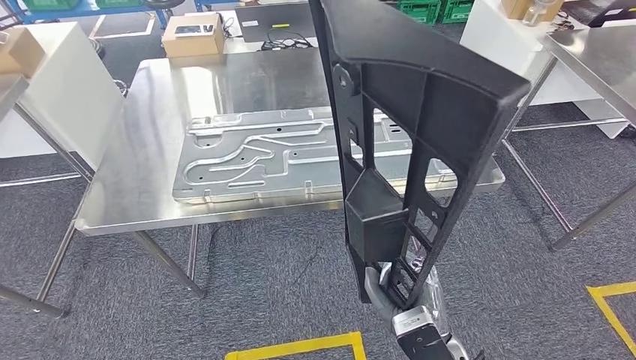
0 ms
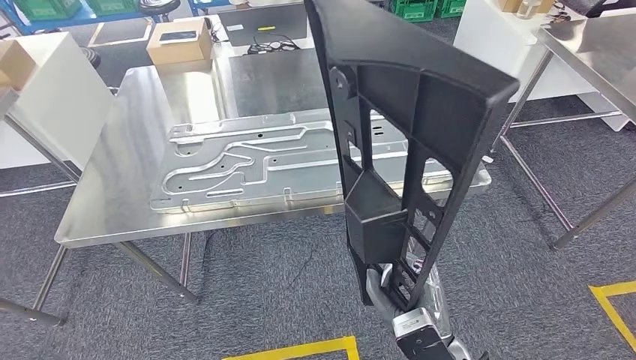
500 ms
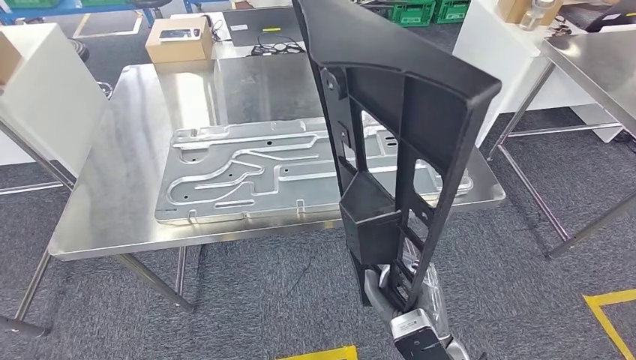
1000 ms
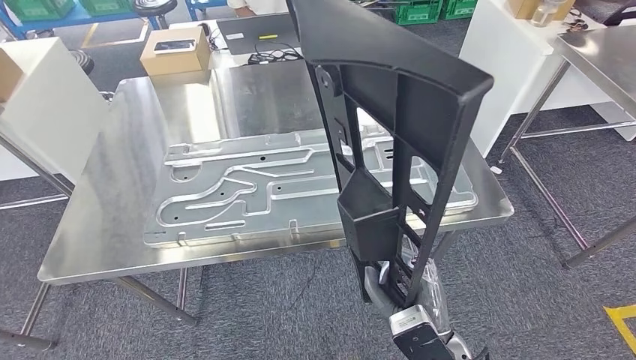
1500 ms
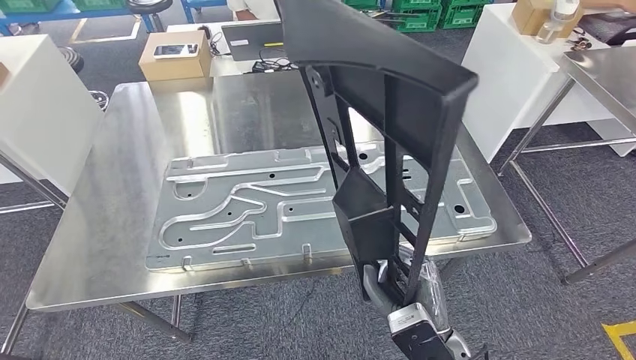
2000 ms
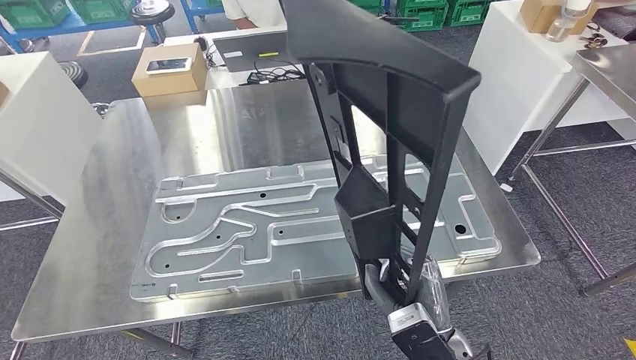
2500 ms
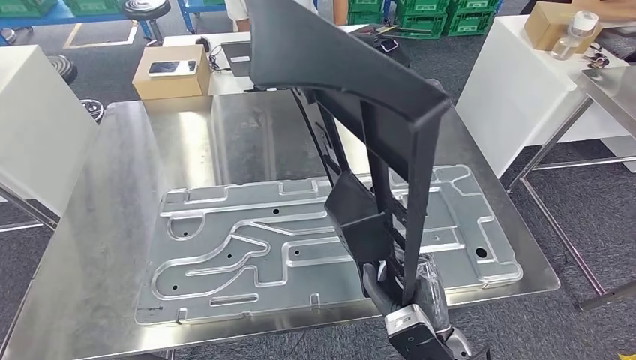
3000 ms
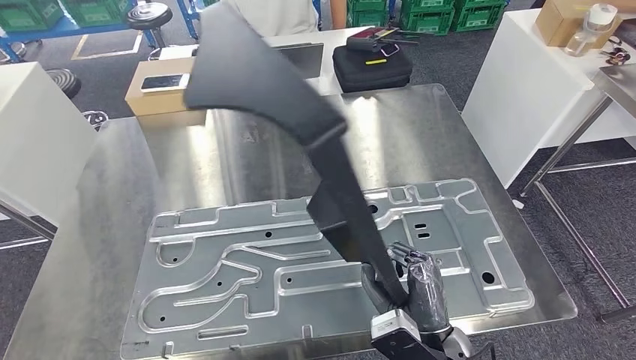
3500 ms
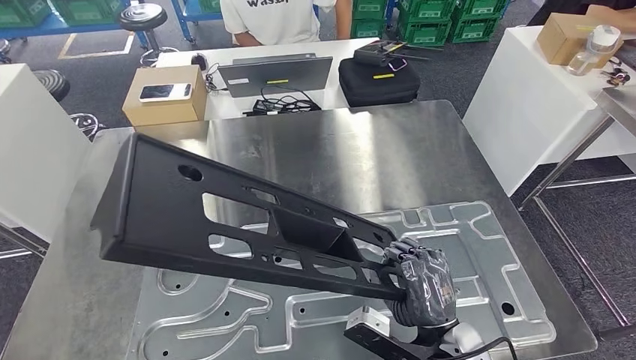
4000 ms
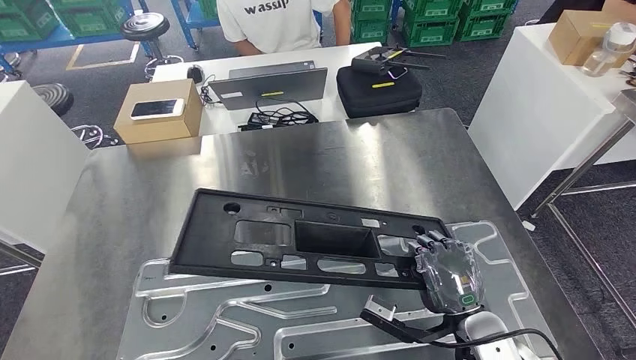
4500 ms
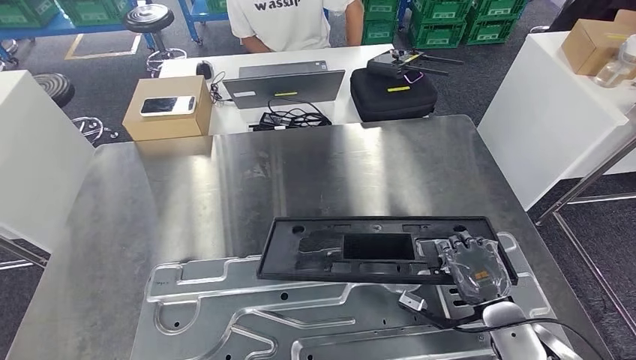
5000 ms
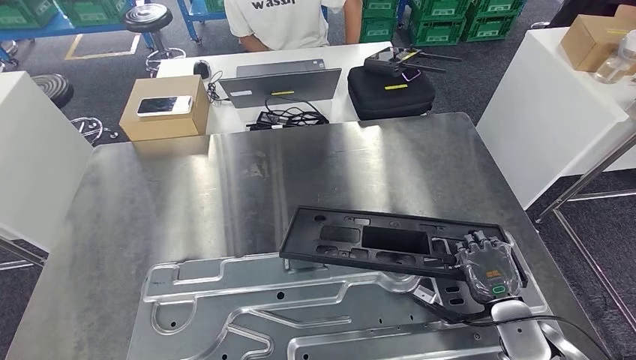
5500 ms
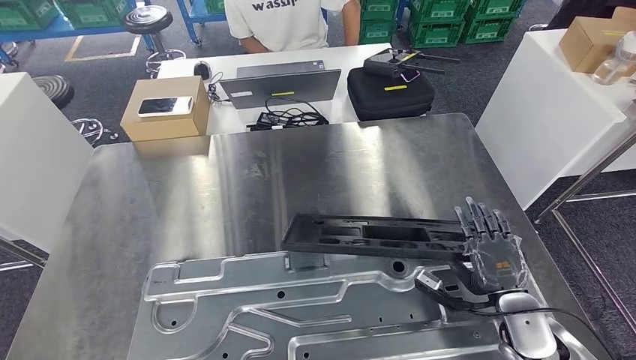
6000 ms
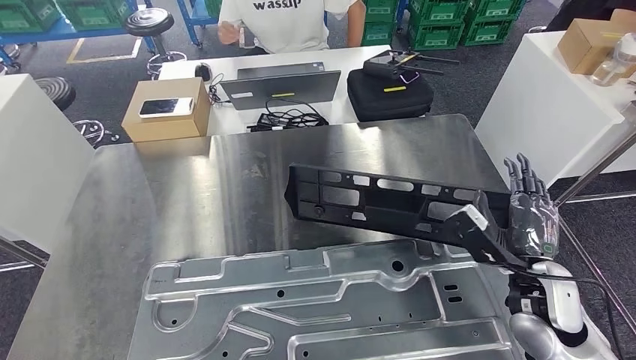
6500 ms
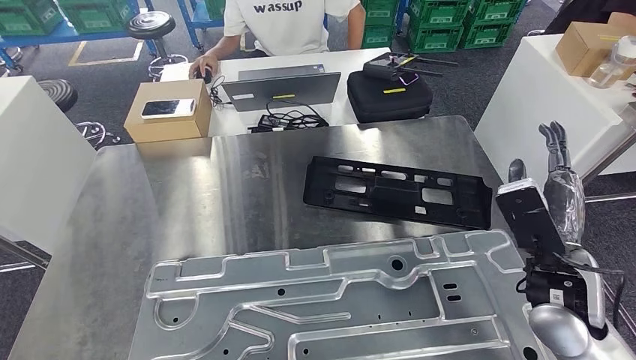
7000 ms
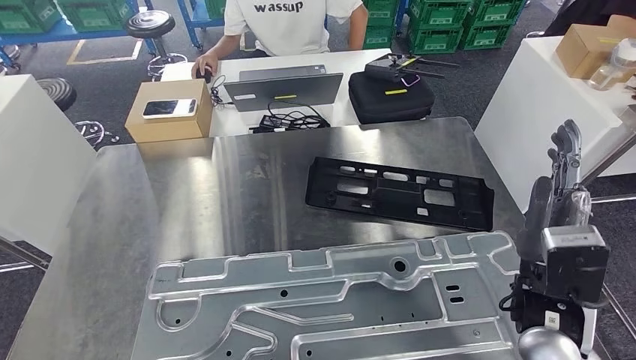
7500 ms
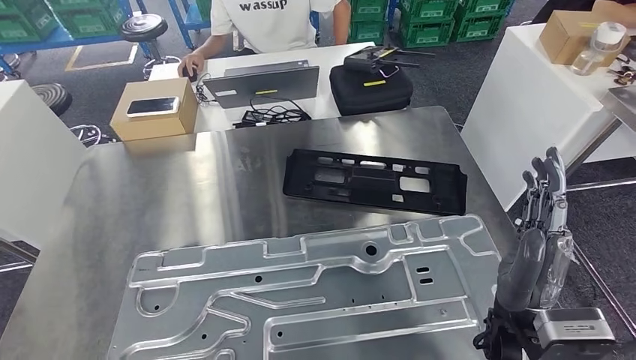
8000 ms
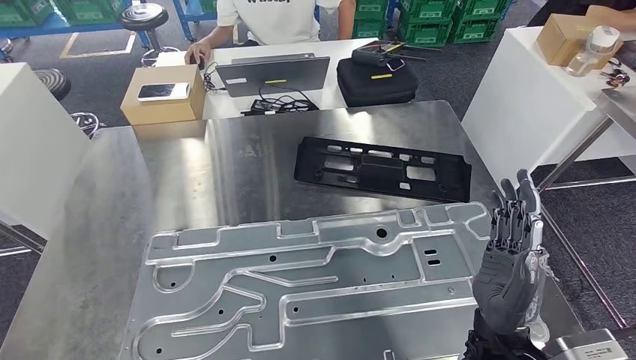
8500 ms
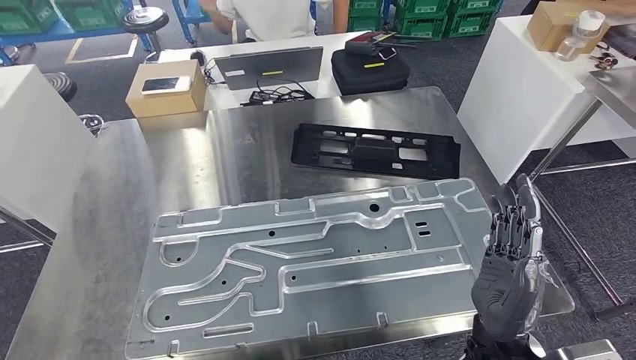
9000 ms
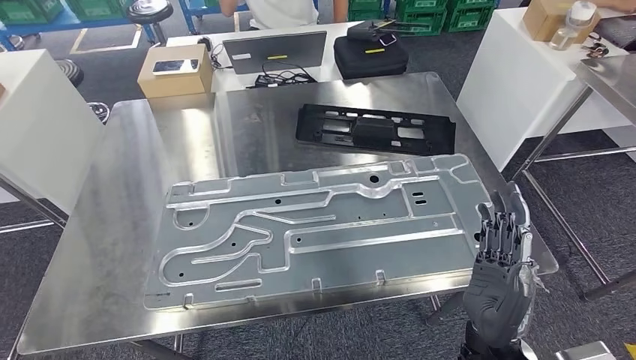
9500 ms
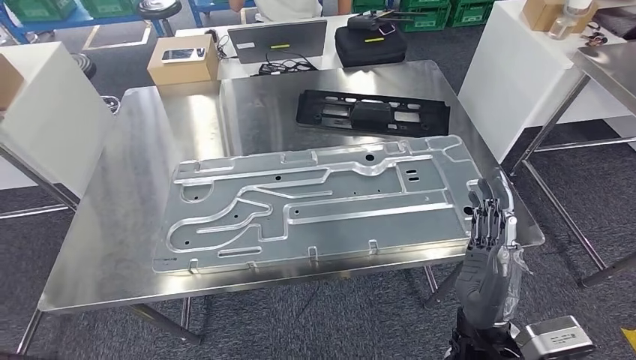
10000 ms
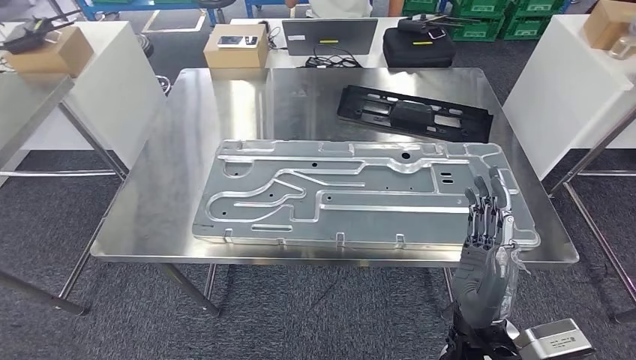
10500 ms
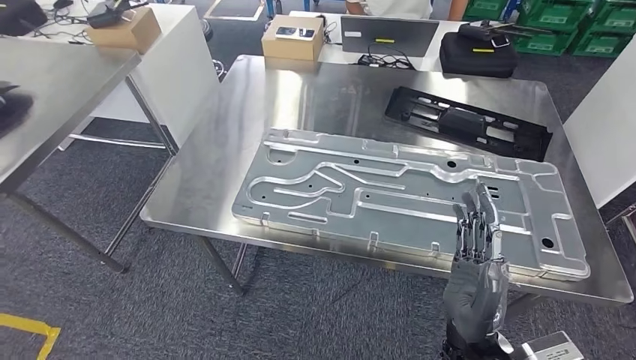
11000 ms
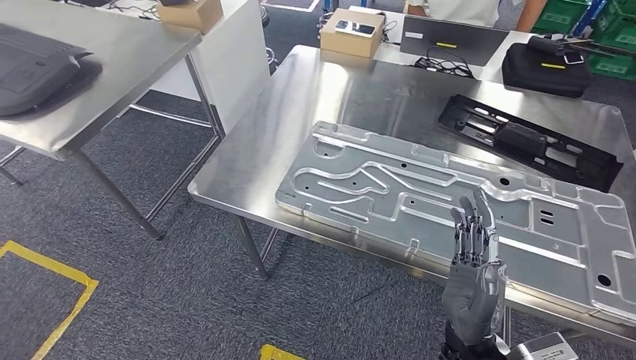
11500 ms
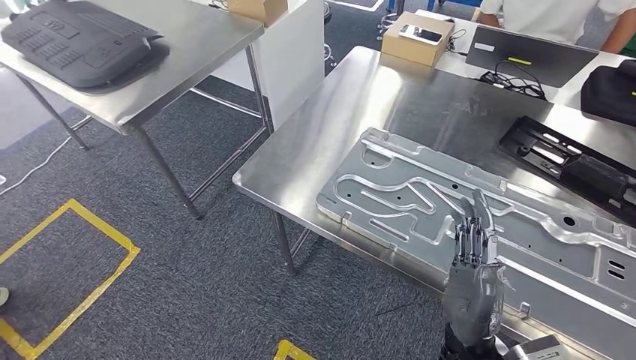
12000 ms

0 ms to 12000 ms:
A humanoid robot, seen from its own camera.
Step, 0 ms to 7500 ms: Insert the large material into the corresponding slot on the workbench.

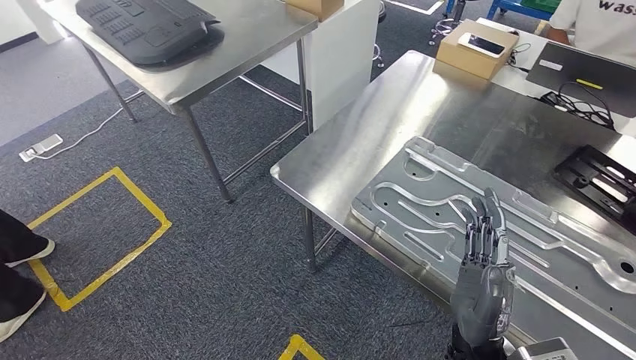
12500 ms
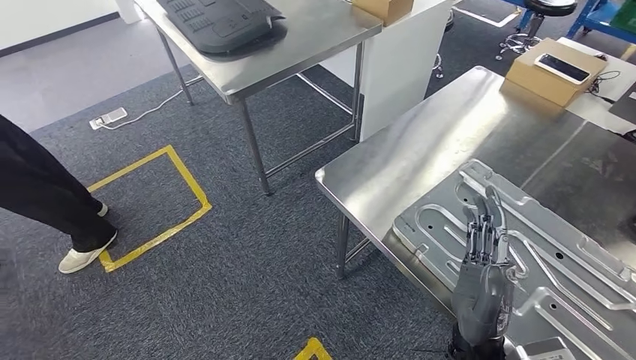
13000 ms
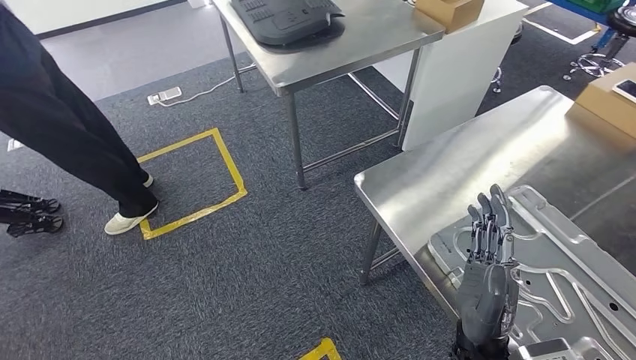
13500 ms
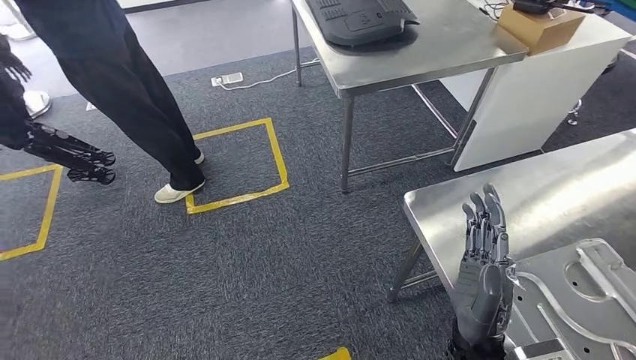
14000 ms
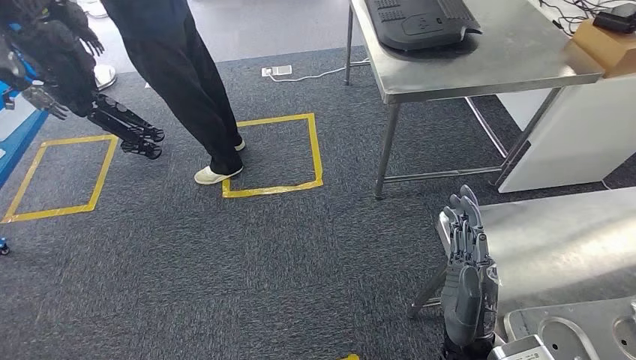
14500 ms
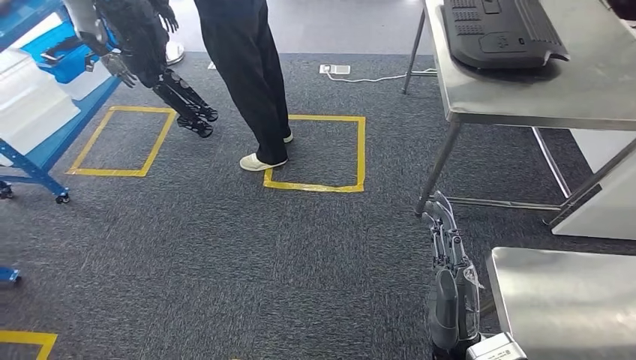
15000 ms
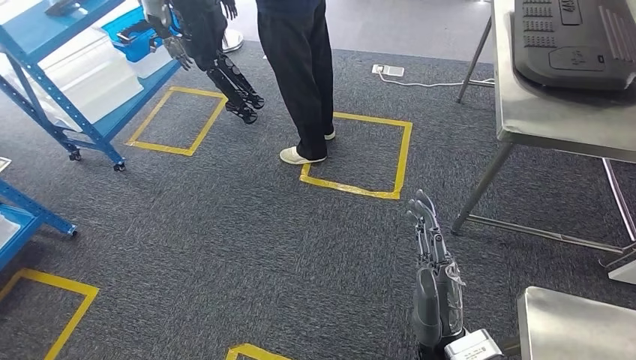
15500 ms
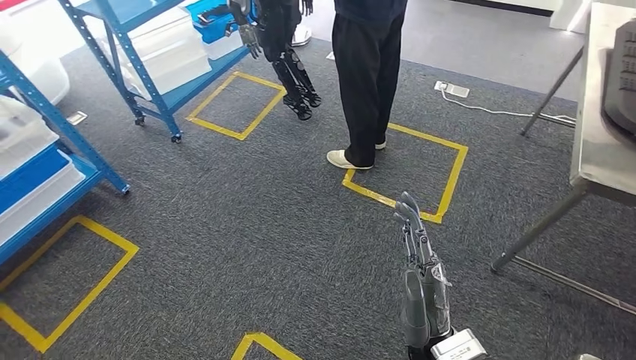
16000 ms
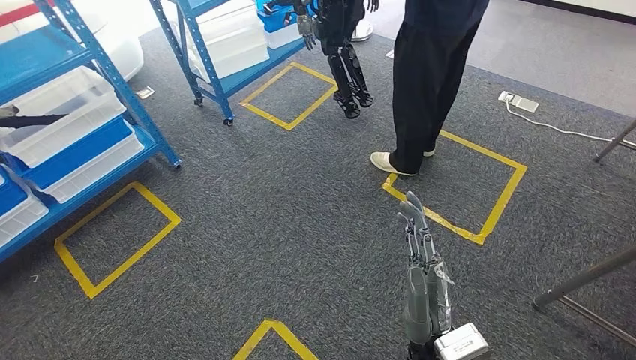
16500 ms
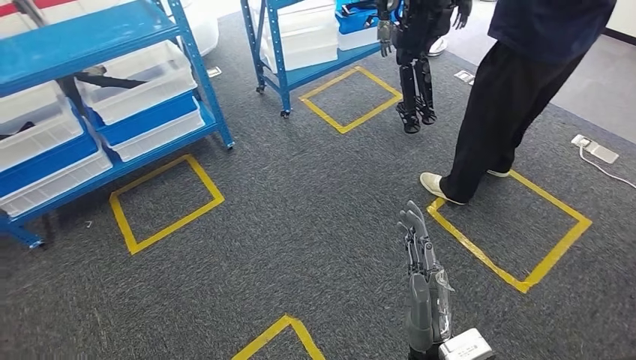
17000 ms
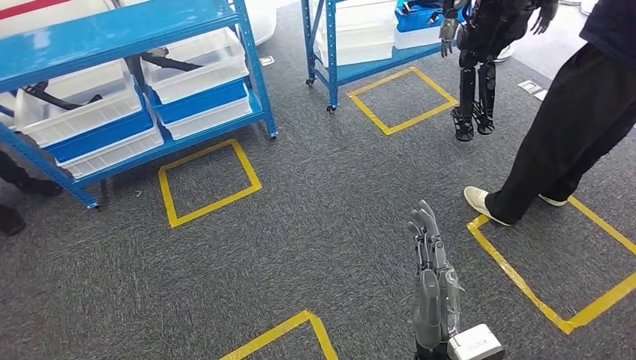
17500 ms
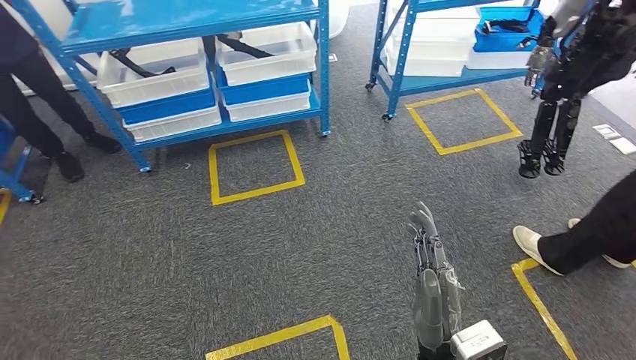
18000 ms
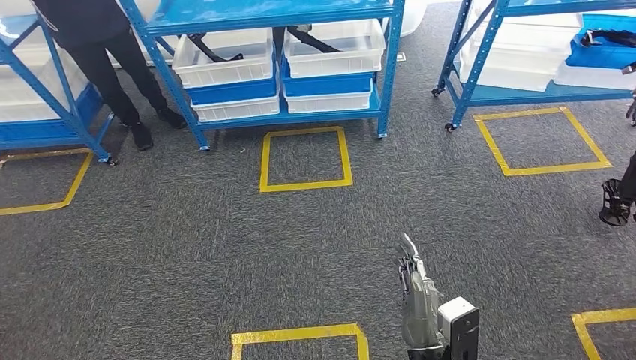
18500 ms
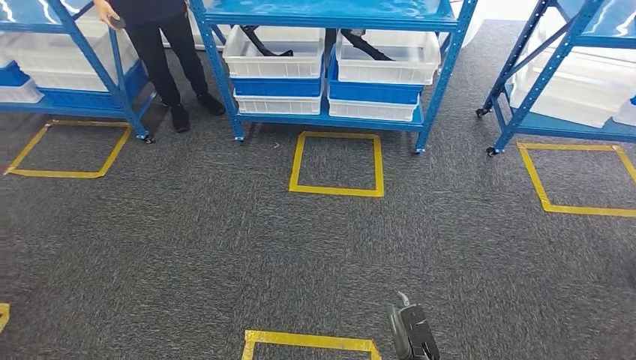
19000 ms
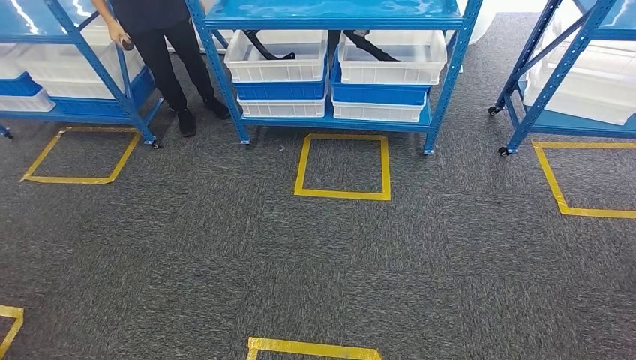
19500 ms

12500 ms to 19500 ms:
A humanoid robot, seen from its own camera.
Step, 12500 ms to 17500 ms: Move to the initial position of the shelf.
